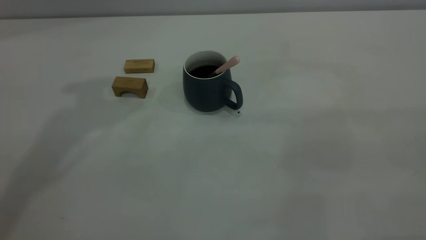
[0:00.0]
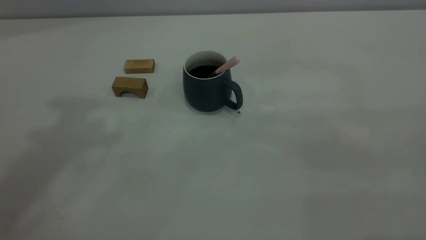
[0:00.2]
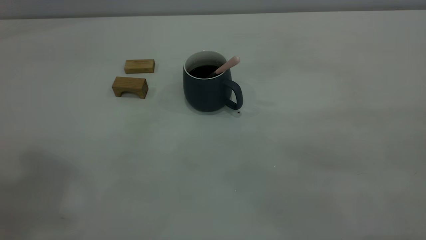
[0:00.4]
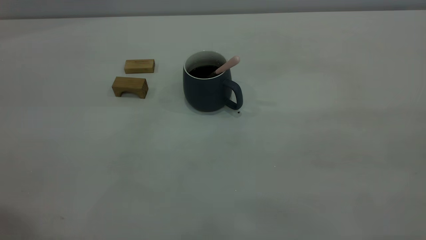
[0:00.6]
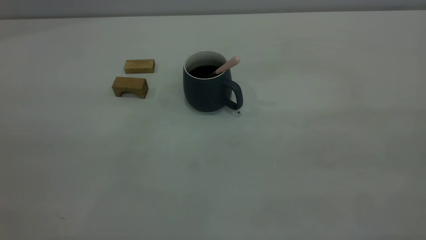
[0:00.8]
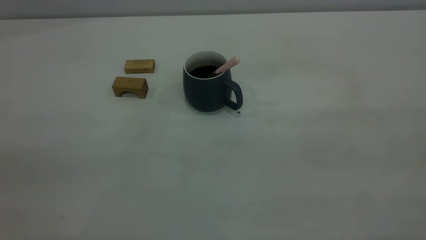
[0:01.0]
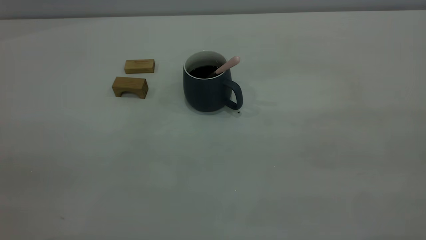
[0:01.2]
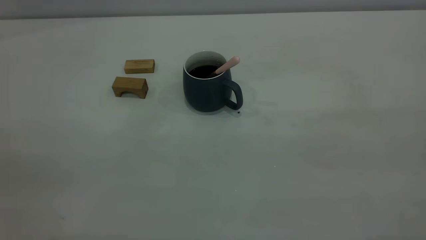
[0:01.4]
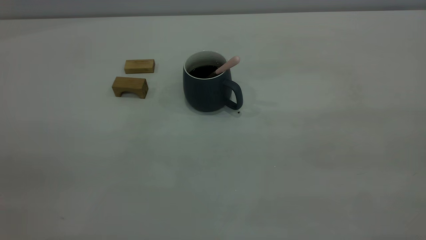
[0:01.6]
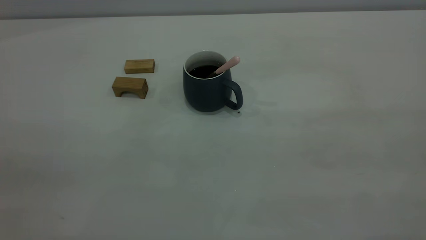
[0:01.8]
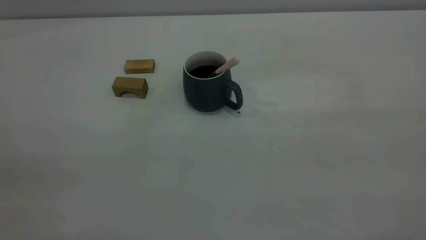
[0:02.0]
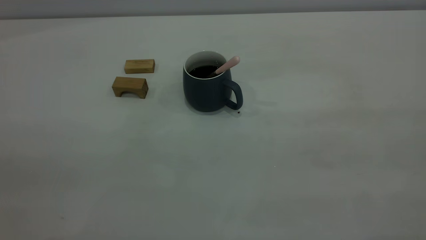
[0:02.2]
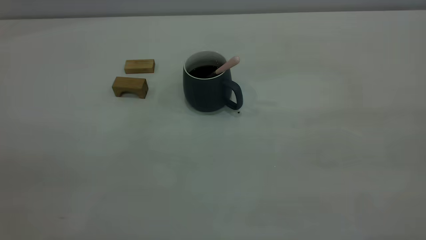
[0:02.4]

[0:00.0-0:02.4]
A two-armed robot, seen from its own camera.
0:01.2 to 0:02.4: Both grippers stay put.

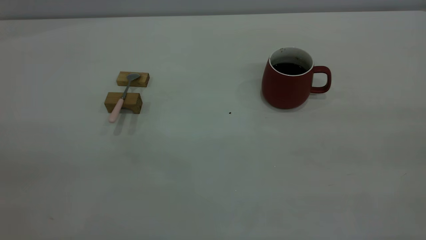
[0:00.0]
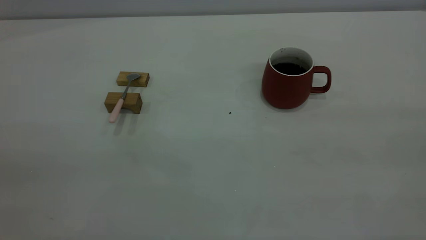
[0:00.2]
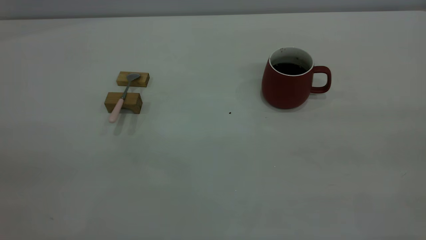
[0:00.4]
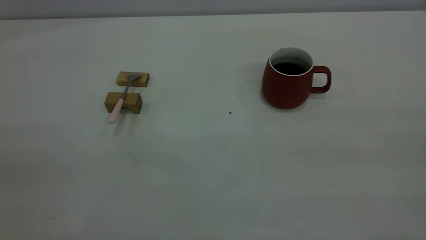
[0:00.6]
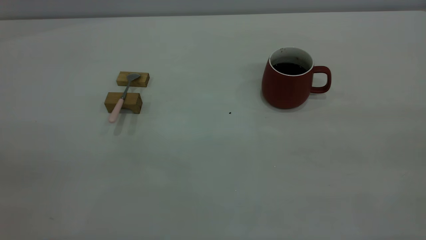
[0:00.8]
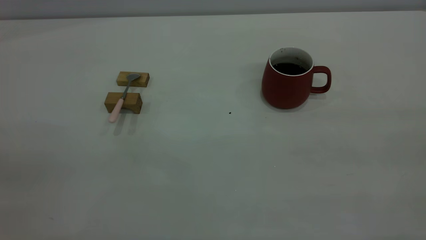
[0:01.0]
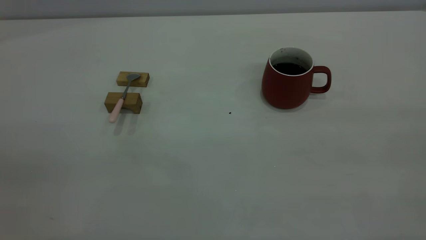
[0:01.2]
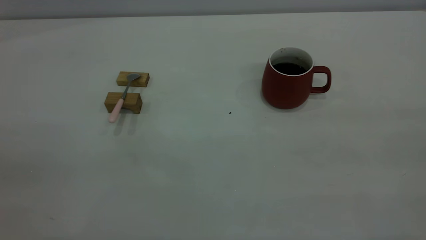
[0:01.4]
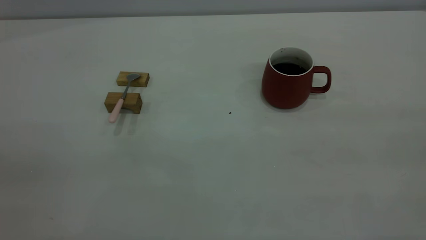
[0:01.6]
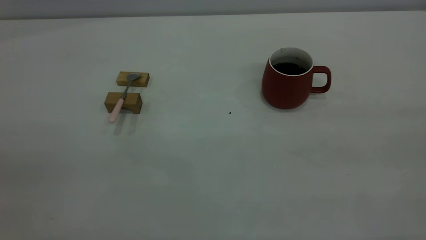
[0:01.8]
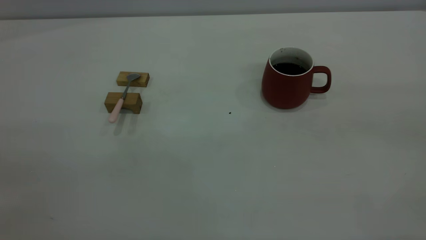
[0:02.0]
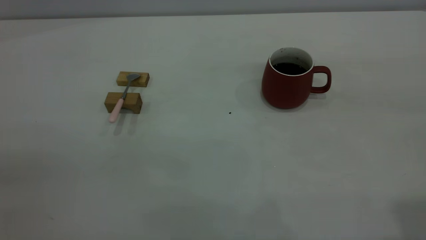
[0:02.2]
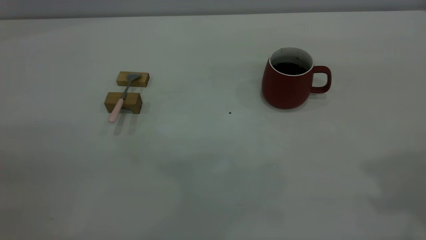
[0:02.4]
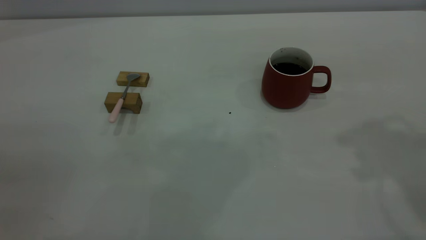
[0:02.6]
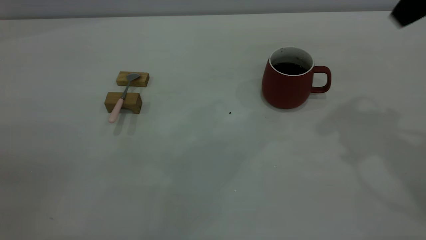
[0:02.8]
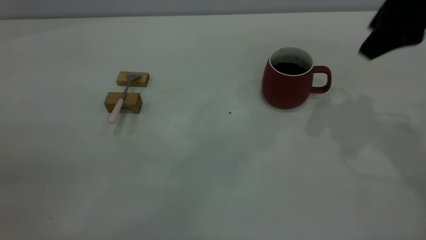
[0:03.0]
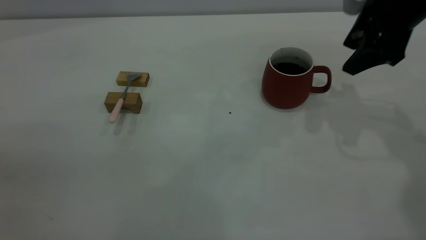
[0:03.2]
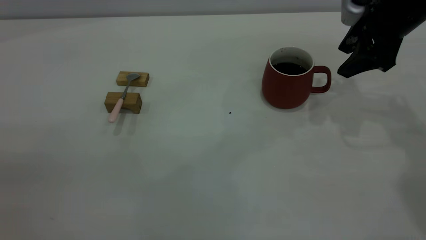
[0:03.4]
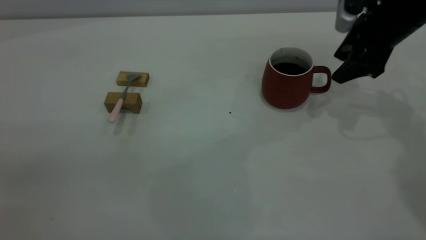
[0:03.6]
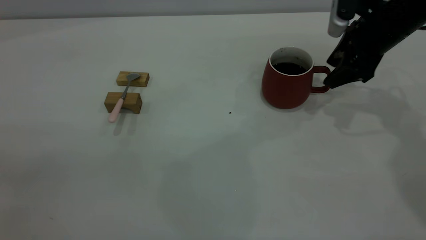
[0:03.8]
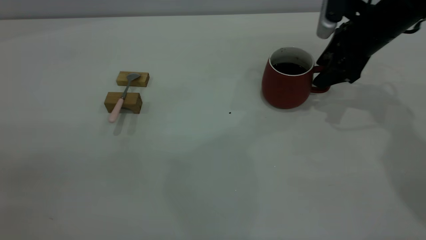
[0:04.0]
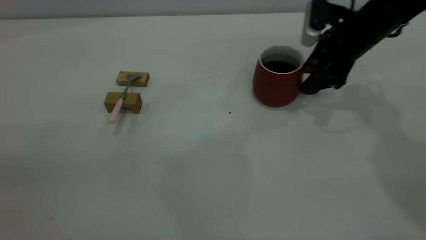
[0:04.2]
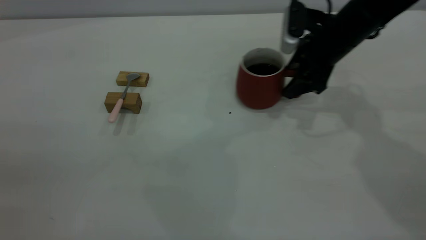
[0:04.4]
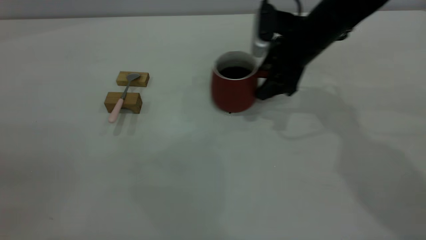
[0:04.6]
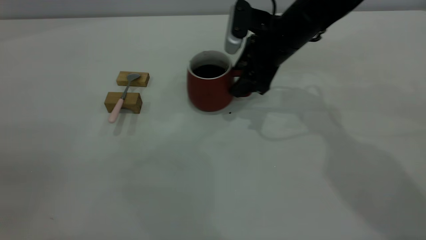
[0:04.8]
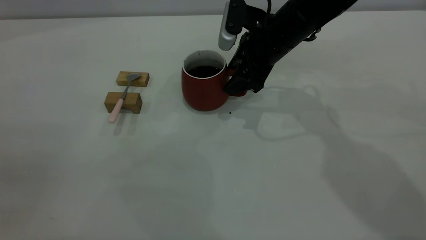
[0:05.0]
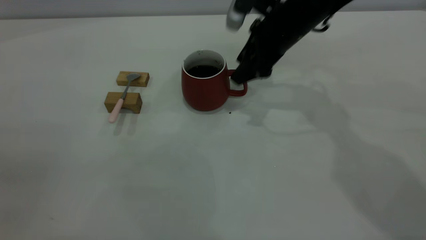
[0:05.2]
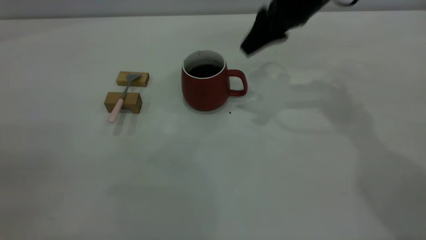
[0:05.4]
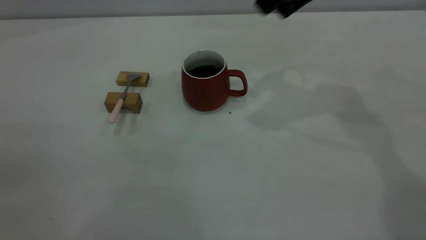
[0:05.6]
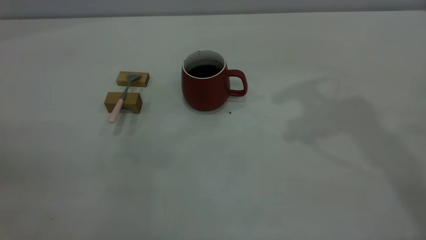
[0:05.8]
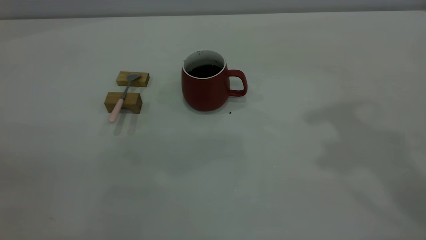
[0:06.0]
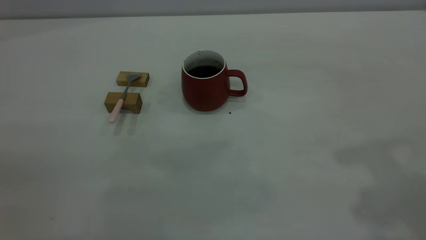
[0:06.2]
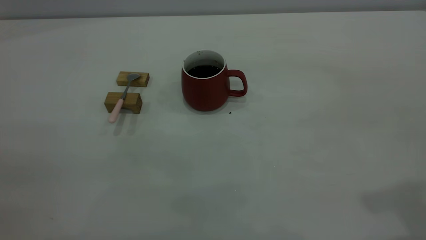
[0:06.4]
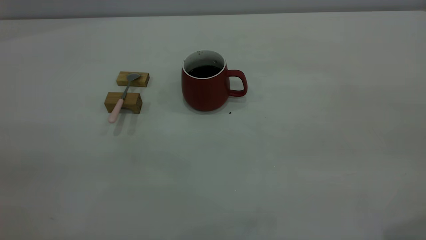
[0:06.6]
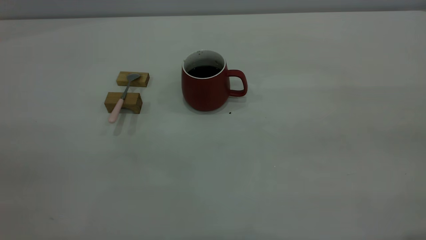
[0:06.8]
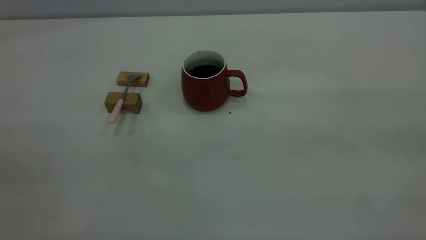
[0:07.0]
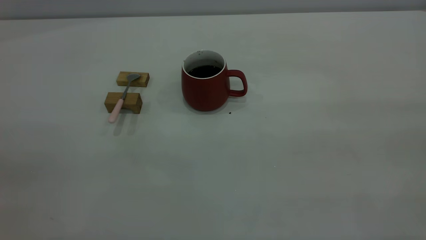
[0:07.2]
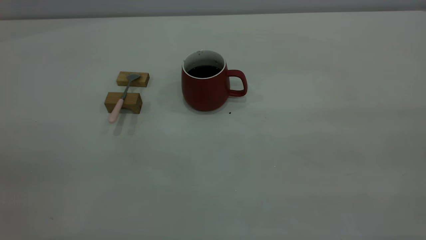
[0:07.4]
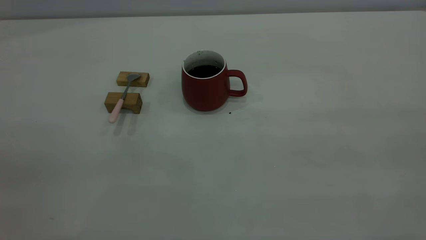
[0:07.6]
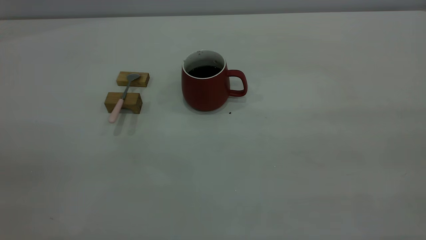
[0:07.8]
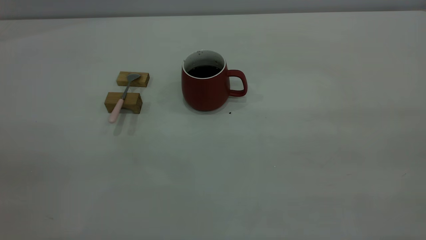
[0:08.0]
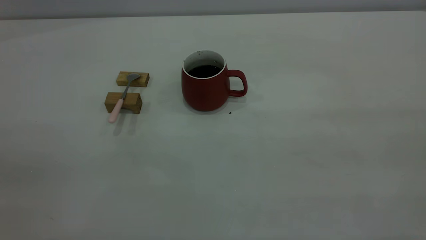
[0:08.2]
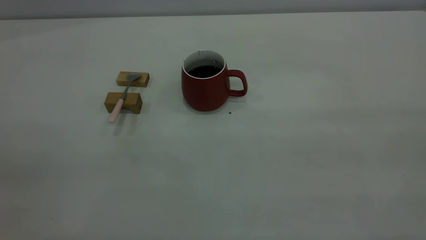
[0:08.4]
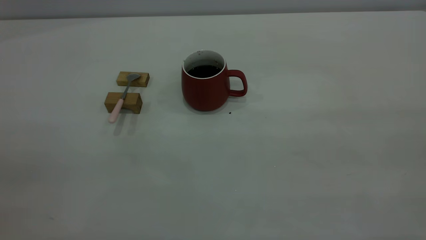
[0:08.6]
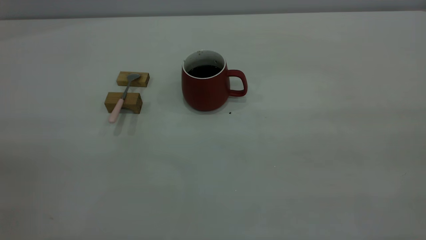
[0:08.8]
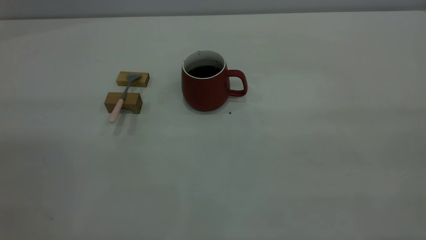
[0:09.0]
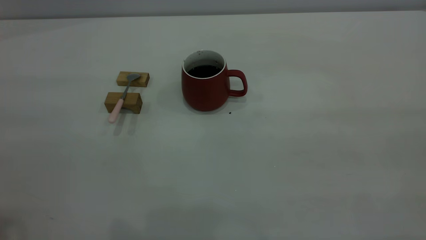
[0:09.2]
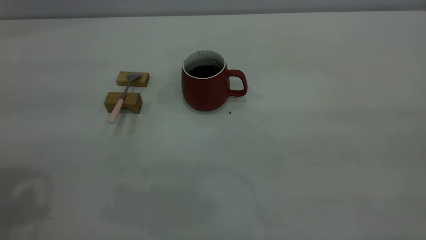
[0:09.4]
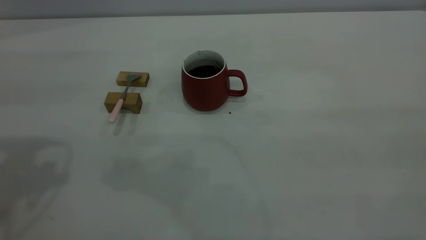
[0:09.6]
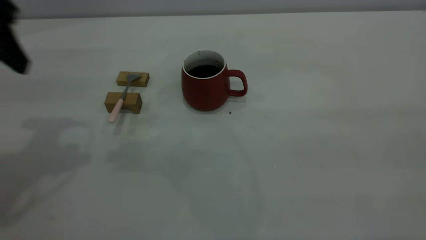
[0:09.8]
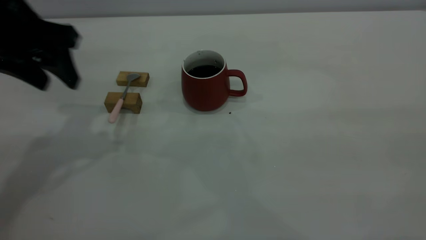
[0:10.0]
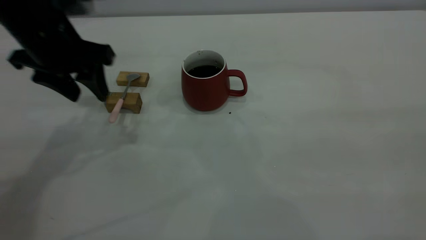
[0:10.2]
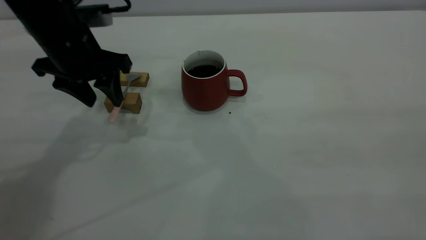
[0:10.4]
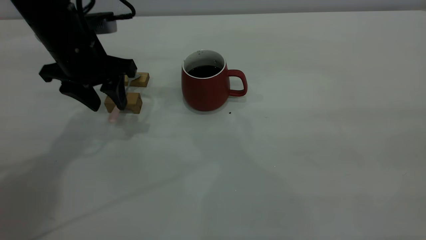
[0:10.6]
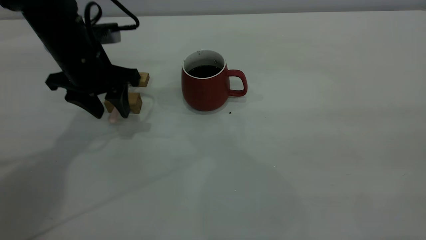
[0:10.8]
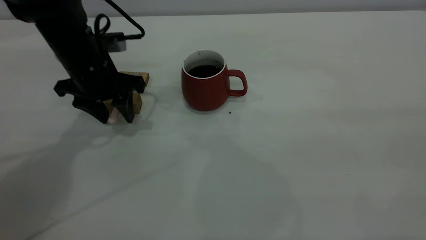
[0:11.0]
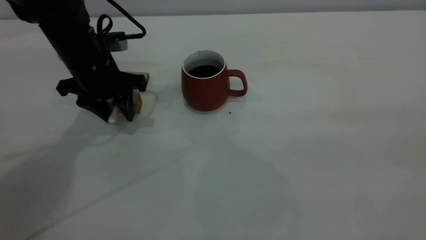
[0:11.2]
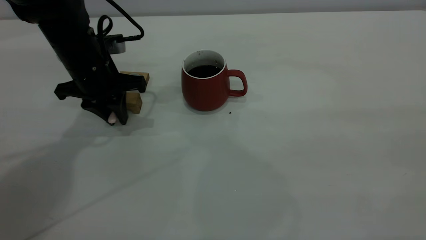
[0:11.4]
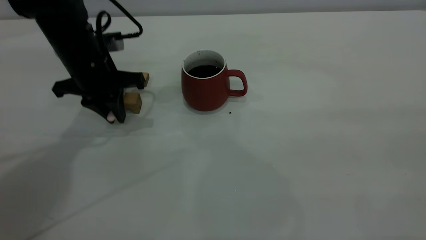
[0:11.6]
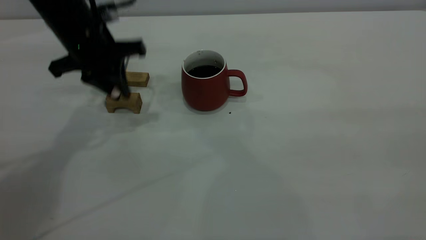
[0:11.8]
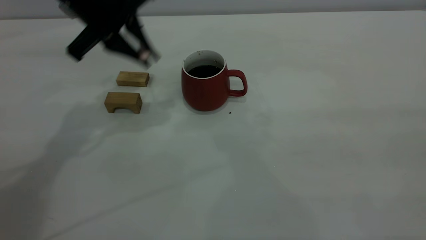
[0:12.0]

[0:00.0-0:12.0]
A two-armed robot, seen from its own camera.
Step, 0:00.0 to 0:05.2: Move the cup with coffee to the center of view.
Step, 0:05.4 to 0:11.8: Pick up the spoon.
0:00.0 to 0:01.6: Both grippers stay put.
0:01.6 to 0:03.0: The right gripper shifts approximately 35 cm forward.
0:03.0 to 0:04.4: The right gripper travels downward, forward and to the left by about 15 cm.
0:04.4 to 0:06.0: The right gripper goes roughly 30 cm upward and backward.
0:09.0 to 0:10.4: The left gripper is displaced forward and downward by approximately 40 cm.
0:10.4 to 0:12.0: The left gripper heads upward, covering some 5 cm, and closes.

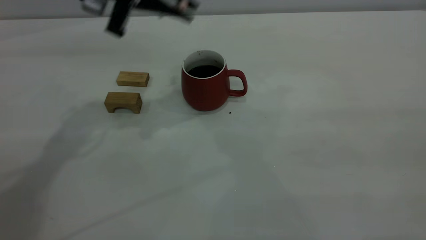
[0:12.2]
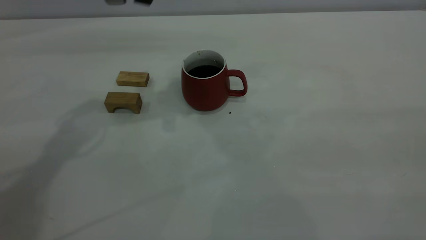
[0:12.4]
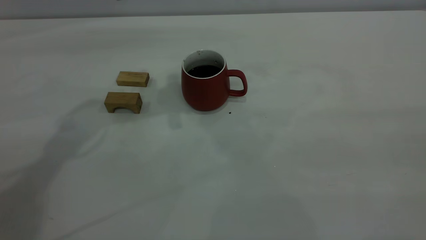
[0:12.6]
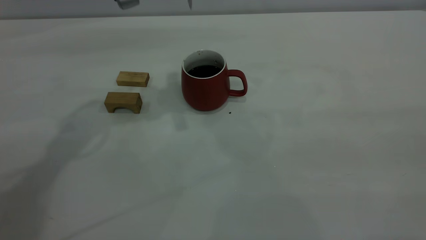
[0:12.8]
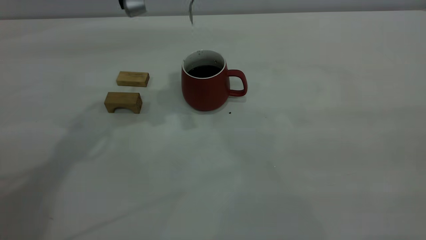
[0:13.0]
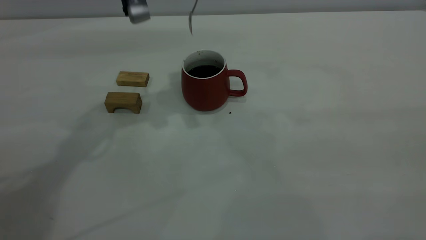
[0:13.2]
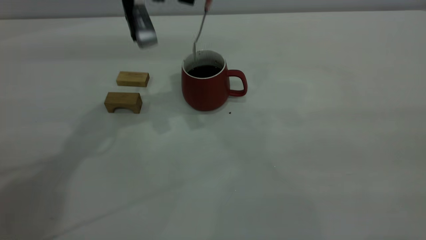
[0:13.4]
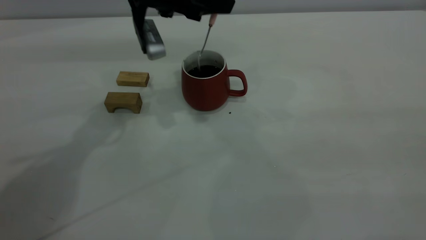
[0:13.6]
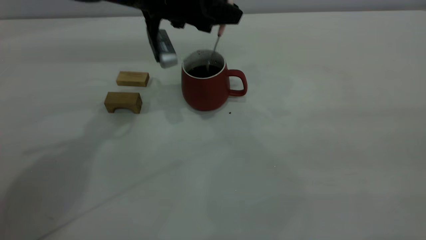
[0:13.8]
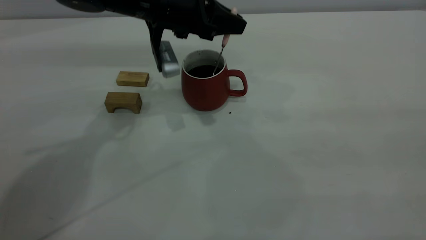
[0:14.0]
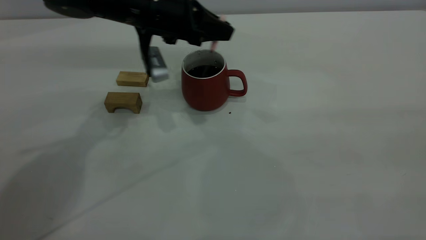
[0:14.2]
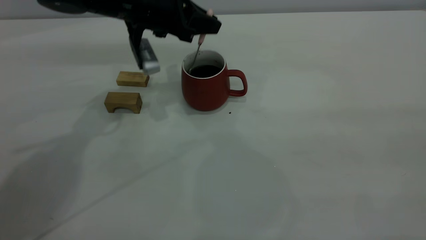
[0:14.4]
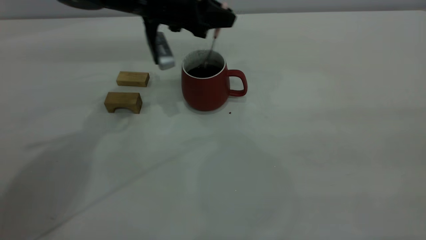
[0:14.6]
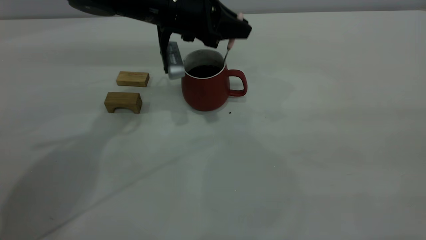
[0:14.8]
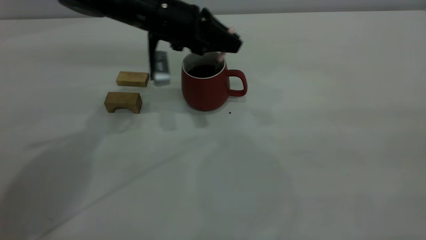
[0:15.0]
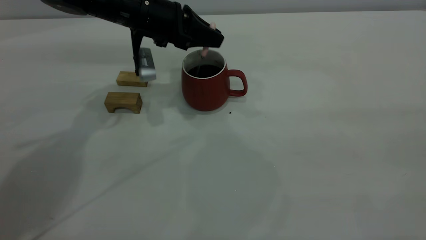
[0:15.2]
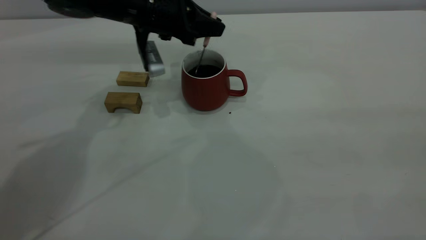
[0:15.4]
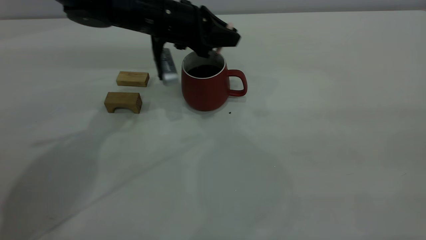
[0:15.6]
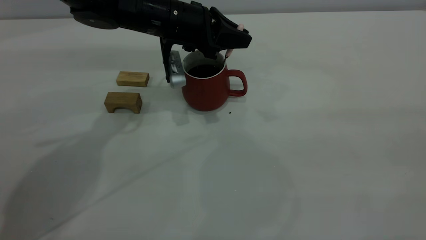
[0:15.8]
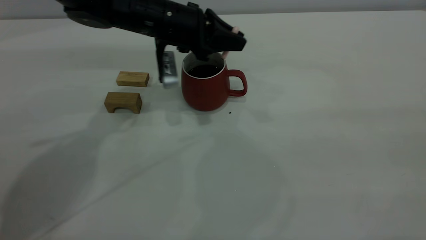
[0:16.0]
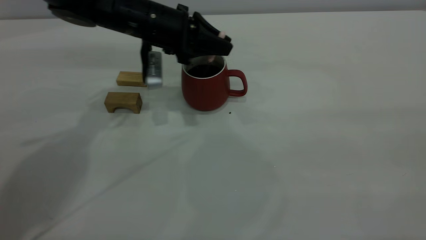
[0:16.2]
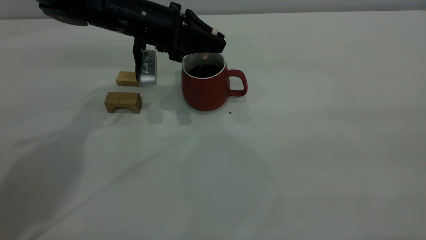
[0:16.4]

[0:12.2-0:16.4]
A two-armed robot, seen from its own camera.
0:12.2 to 0:13.6: The left gripper moves downward, roughly 5 cm.
0:13.6 to 0:15.0: There are only small adjustments of the grippers.
0:15.0 to 0:16.4: The grippers move only a little.
